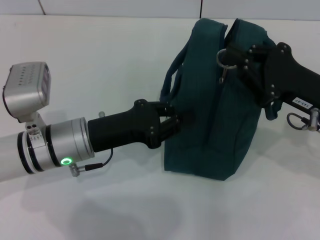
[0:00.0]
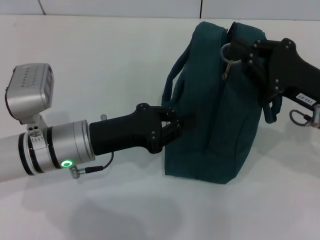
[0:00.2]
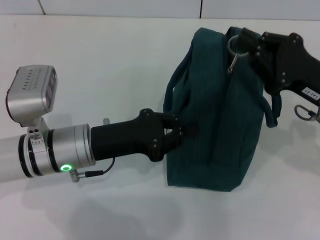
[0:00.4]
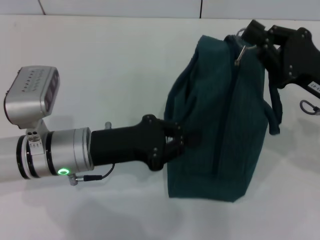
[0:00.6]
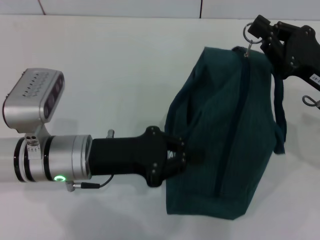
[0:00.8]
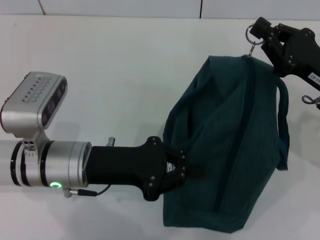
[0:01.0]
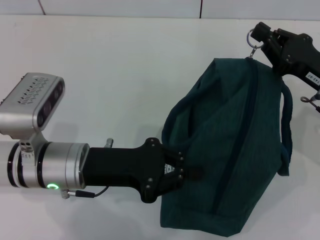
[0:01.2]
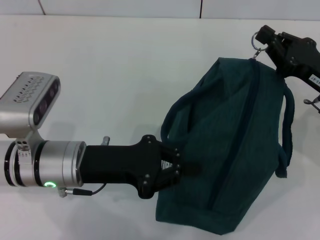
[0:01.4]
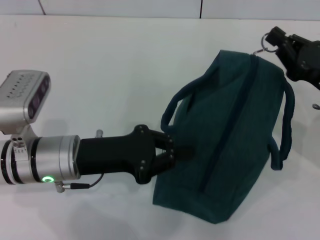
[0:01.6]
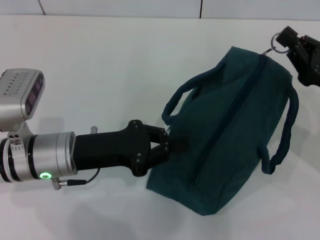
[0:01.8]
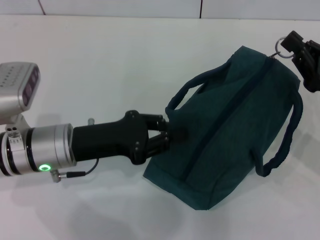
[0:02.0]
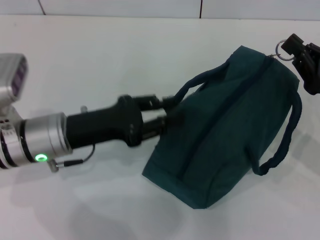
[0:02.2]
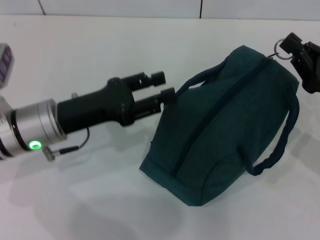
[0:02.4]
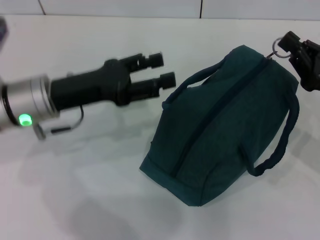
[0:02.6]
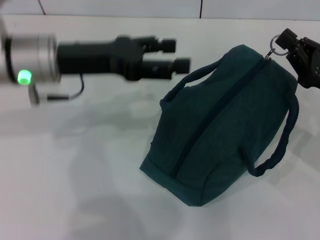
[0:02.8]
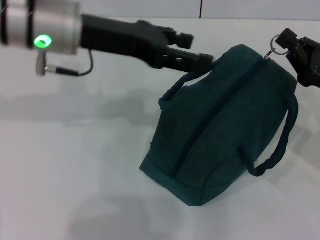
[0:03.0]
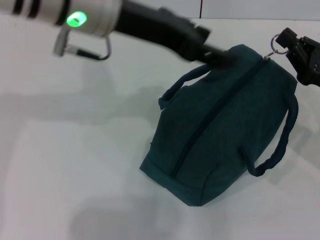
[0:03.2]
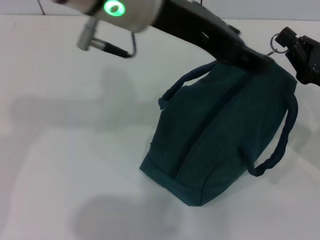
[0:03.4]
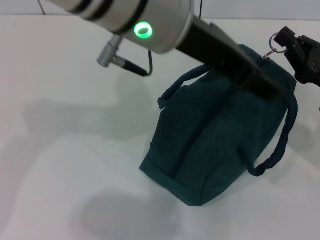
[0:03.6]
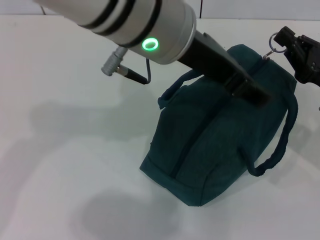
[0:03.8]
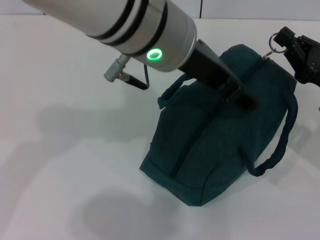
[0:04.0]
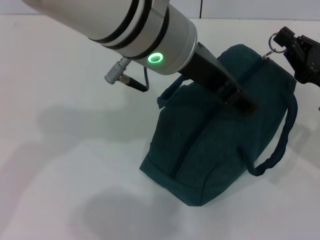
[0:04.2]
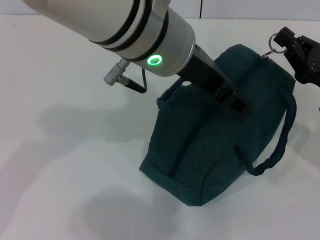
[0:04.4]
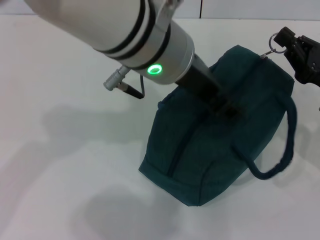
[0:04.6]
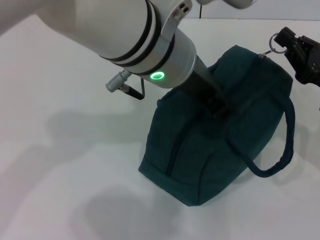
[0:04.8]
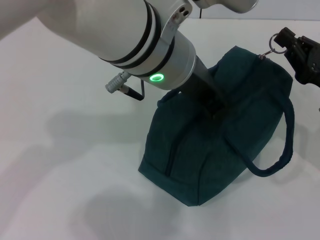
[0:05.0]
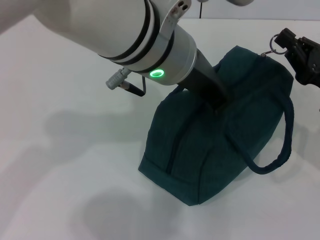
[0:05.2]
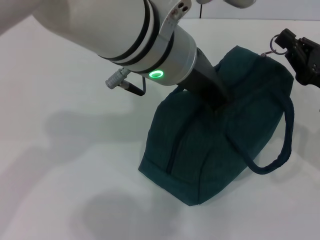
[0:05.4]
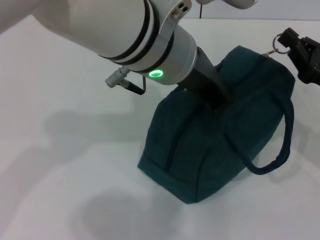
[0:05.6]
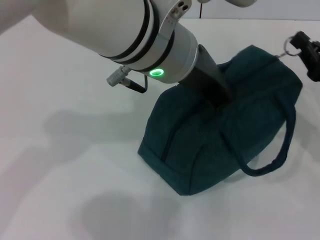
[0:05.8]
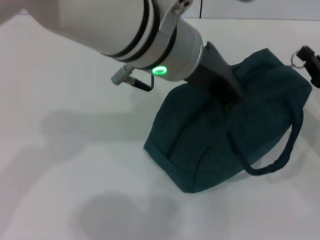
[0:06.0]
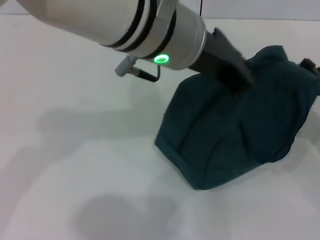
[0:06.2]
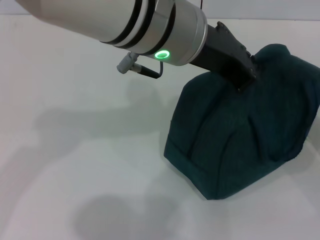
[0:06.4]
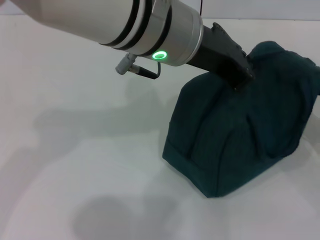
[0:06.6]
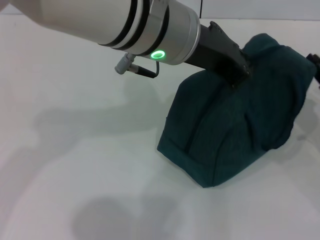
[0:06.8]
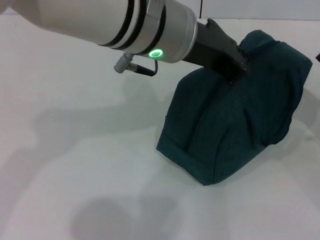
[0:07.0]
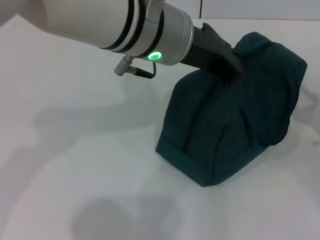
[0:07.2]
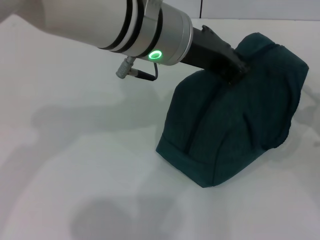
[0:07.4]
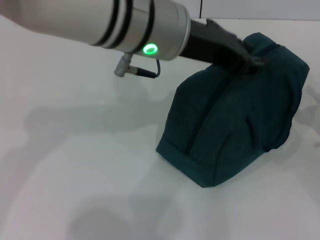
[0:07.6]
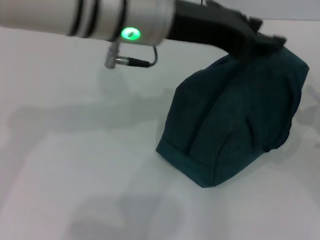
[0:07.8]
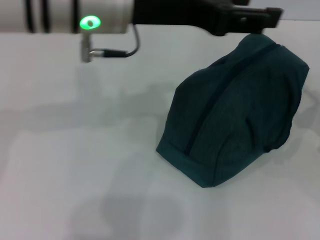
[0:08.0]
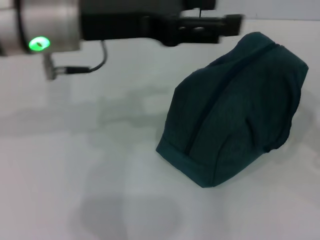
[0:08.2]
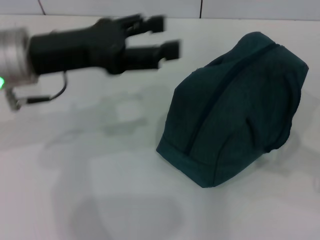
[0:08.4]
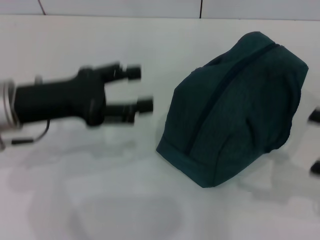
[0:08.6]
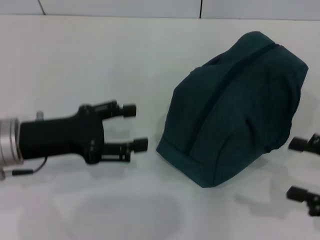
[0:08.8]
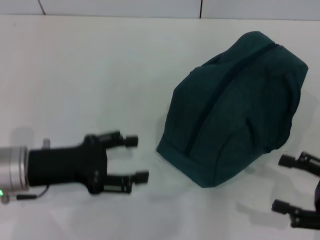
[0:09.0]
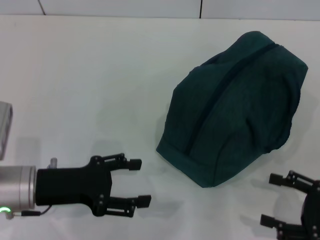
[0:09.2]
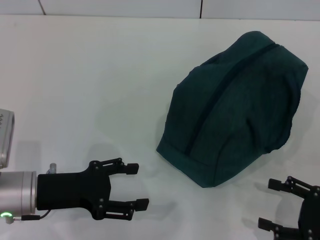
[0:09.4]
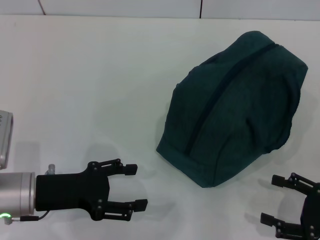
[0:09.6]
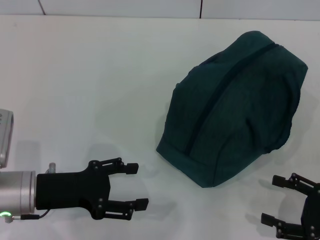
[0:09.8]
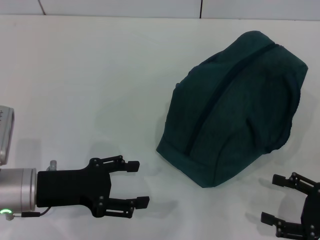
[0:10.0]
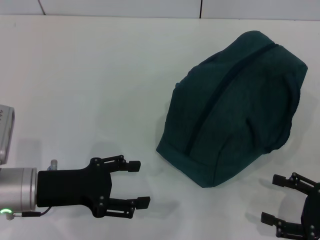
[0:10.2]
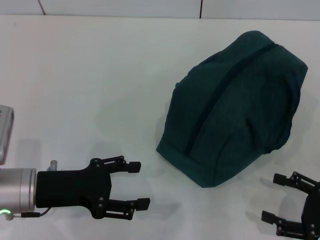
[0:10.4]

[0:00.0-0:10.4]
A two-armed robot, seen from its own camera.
Step, 0:00.0 to 0:07.2: Zip up the lunch bag with your right hand.
Step, 0:07.4 to 0:08.4: Hold the lunch bag with your left hand.
0:01.4 to 0:03.0: The left gripper moves upward and forward, roughly 20 cm, and opens up.
0:03.0 to 0:04.4: The left gripper goes roughly 10 cm to the right.
0:04.4 to 0:06.0: The left gripper closes up.
0:06.0 to 0:07.4: The right gripper opens its fingers.
0:07.4 to 0:09.0: The right gripper is displaced backward by about 10 cm, while the left gripper travels to the left, downward and backward by approximately 25 cm, and opens up.
0:09.0 to 0:10.4: The grippers stay close to where they were, moving slightly.

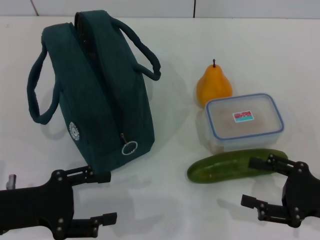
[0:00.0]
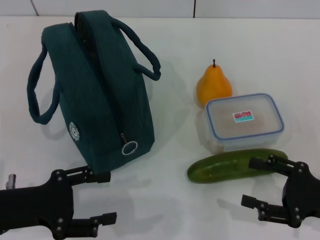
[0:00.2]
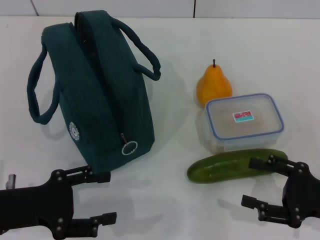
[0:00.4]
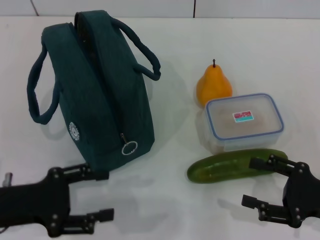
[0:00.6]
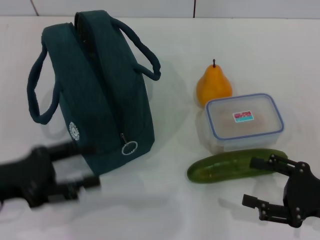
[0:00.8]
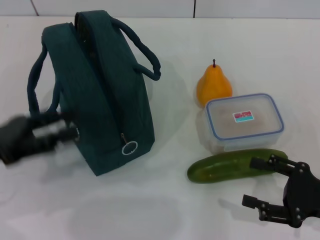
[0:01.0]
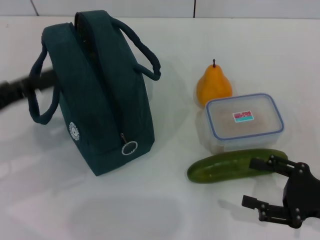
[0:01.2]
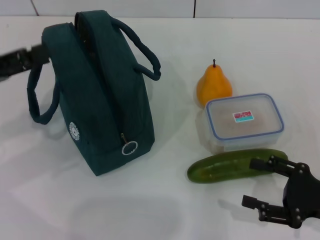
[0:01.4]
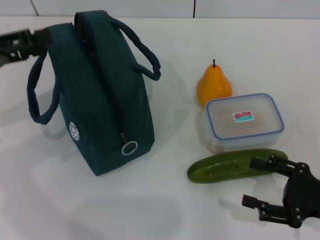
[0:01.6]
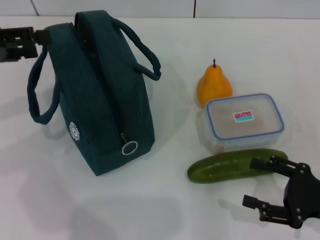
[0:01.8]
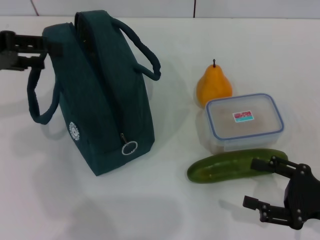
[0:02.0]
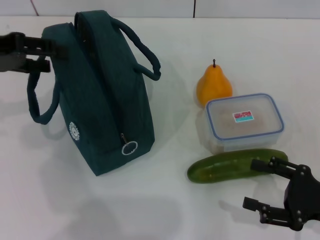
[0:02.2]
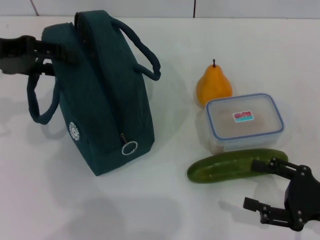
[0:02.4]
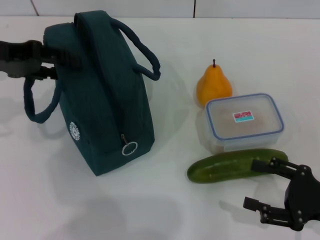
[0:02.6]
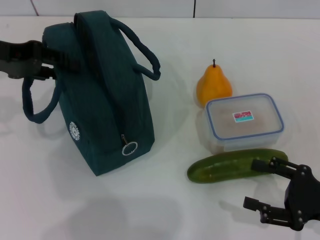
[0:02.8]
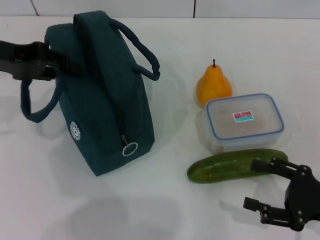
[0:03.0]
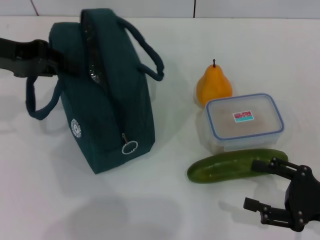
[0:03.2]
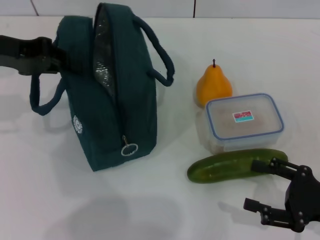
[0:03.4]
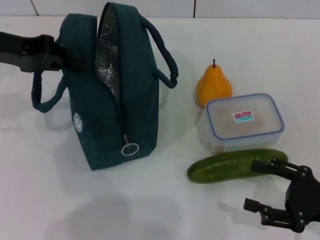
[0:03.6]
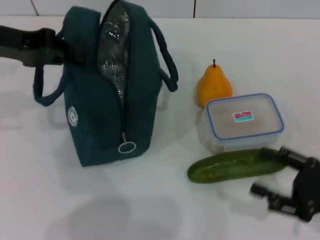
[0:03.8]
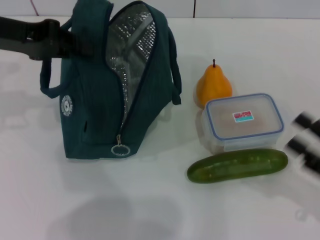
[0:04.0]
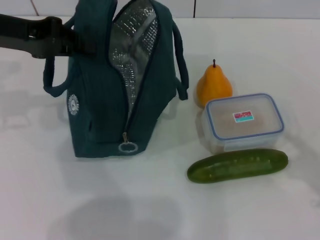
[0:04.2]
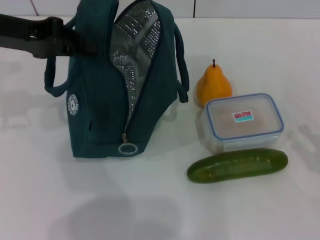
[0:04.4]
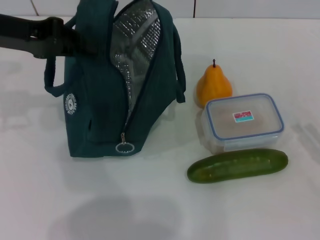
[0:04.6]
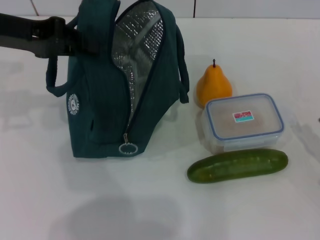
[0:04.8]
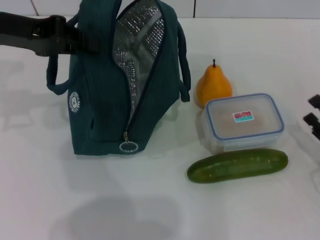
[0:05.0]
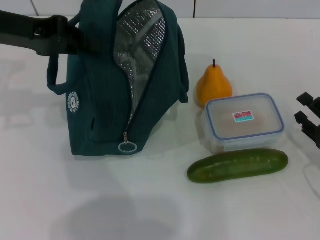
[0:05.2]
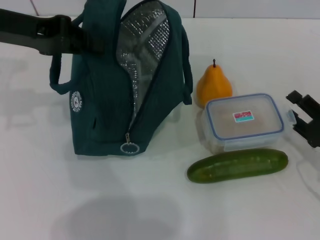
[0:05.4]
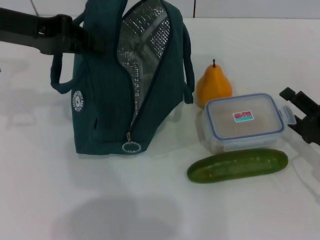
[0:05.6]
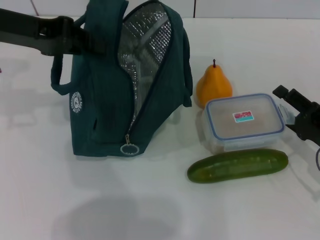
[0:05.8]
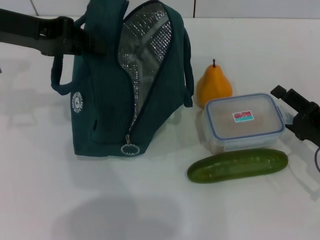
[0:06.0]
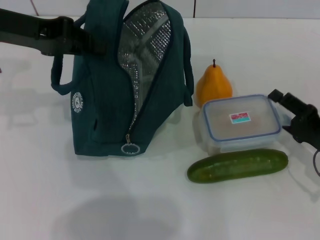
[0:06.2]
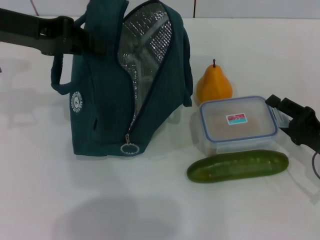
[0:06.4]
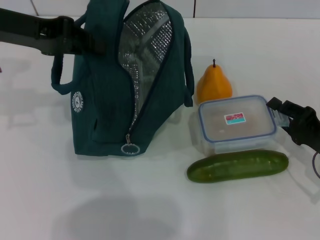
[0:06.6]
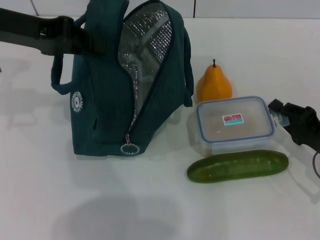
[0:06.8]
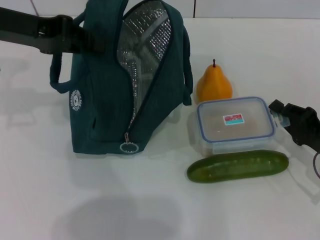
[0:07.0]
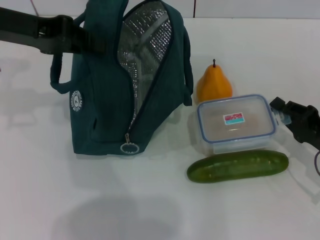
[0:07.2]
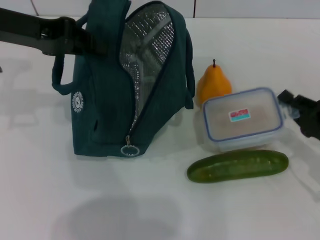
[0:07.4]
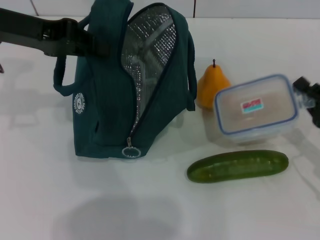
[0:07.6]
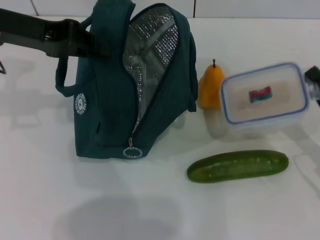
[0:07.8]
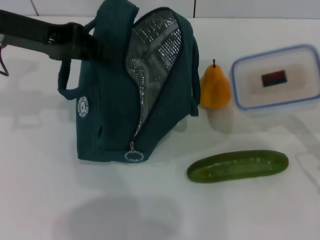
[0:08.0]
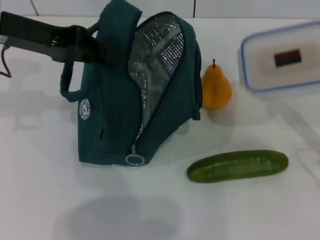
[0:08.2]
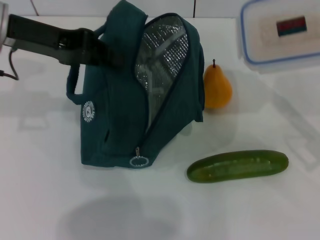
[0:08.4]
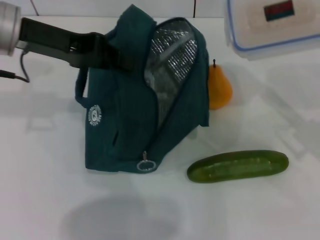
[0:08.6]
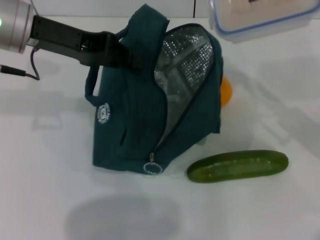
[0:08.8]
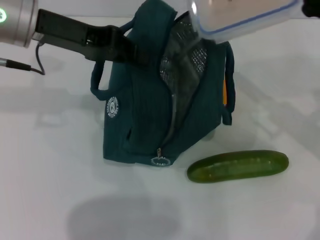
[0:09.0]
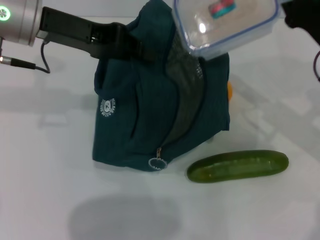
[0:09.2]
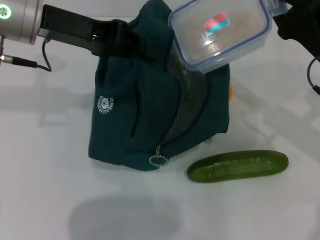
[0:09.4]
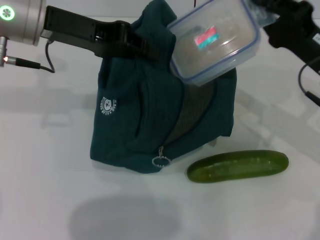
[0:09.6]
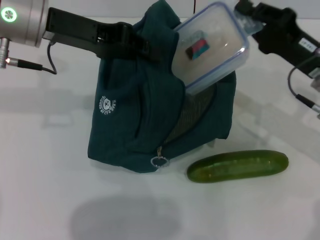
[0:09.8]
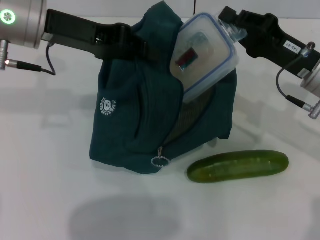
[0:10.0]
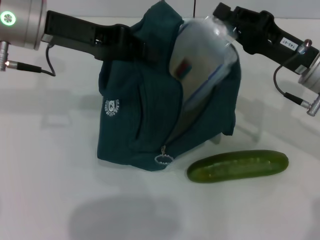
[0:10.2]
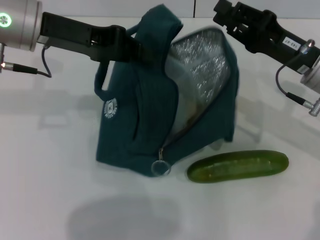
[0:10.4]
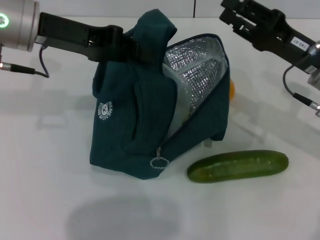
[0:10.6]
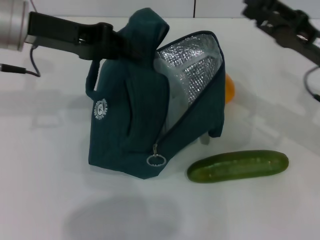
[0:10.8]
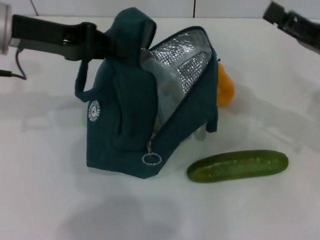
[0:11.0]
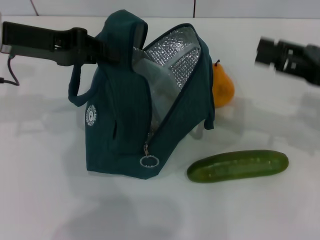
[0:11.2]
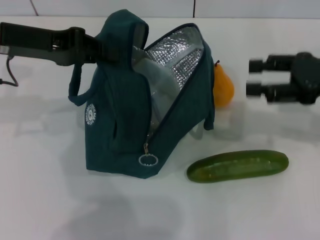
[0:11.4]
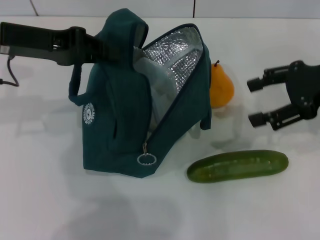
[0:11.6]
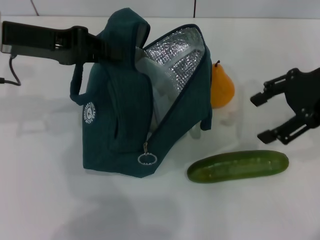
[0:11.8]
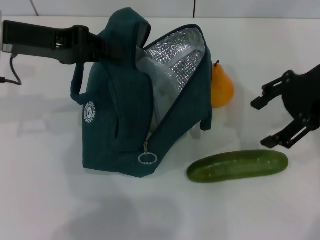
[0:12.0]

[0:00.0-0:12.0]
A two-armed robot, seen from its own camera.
Step, 0:00.0 to 0:03.6: Hold the lunch bag with your left hand.
Step, 0:03.8 to 0:07.0: Pick up the lunch box with your right hand.
Step, 0:07.2 to 0:10.4: Place the lunch box into the lunch bag with your right hand.
0:00.0 to 0:01.6: The left gripper shifts some 15 cm upward, forward and to the left.
0:01.6 to 0:03.0: The left gripper is displaced forward by approximately 5 cm.
0:03.0 to 0:04.4: The left gripper closes; the right gripper shifts by some 5 cm.
0:04.4 to 0:06.0: The right gripper goes roughly 10 cm forward.
0:06.0 to 0:07.6: The right gripper closes up.
0:07.6 to 0:09.0: The right gripper heads upward and forward, covering about 15 cm.
0:10.4 to 0:12.0: The right gripper heads upward, covering approximately 10 cm, and opens its fingers.
